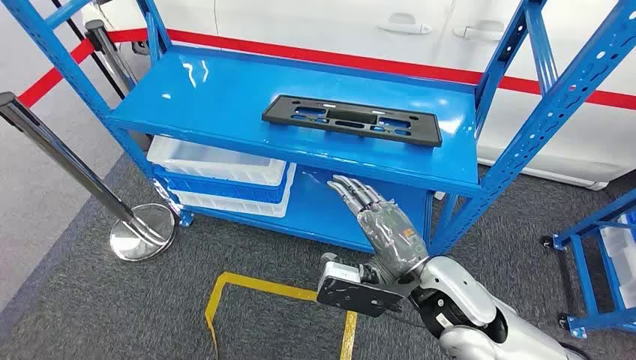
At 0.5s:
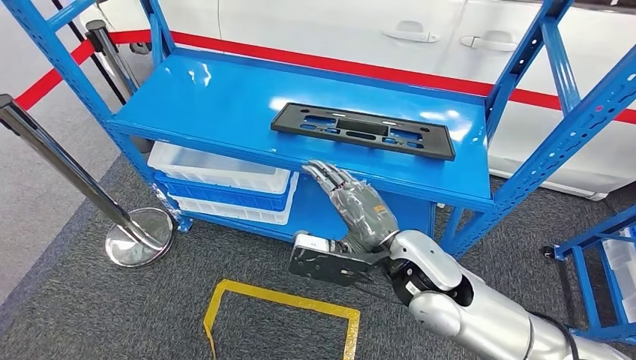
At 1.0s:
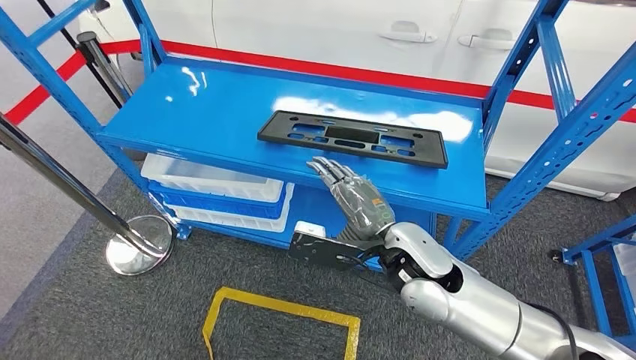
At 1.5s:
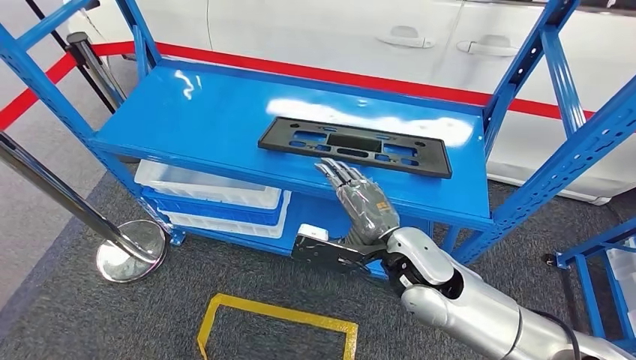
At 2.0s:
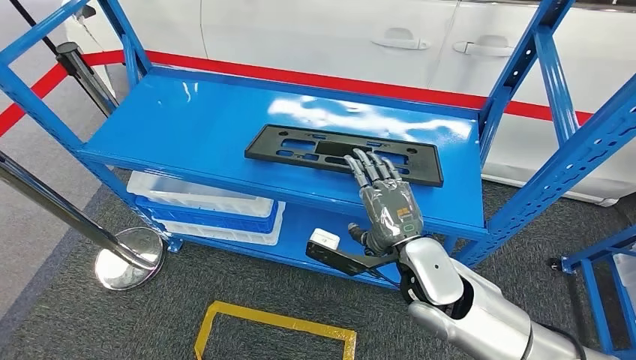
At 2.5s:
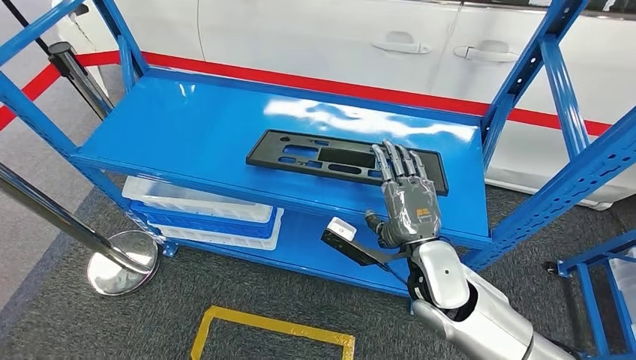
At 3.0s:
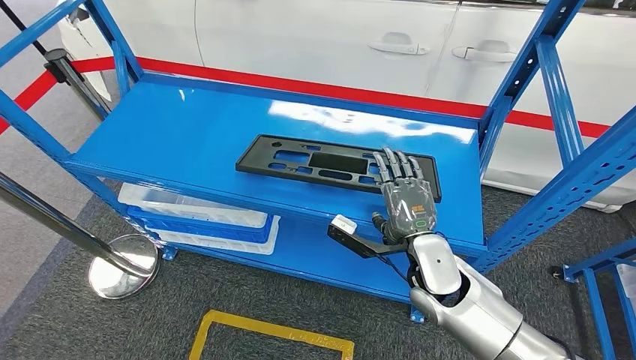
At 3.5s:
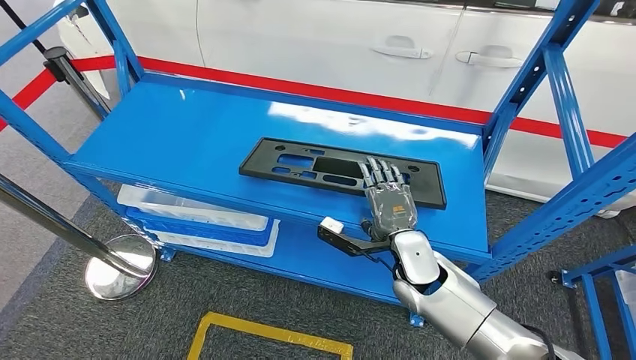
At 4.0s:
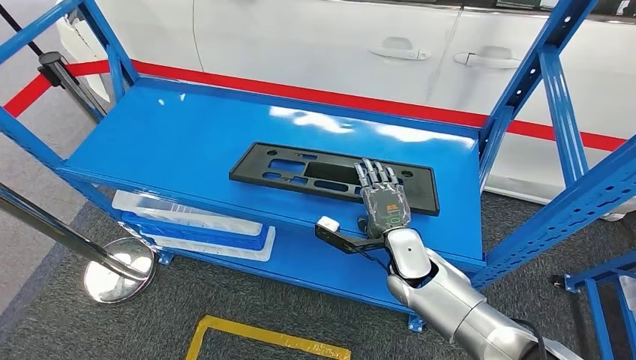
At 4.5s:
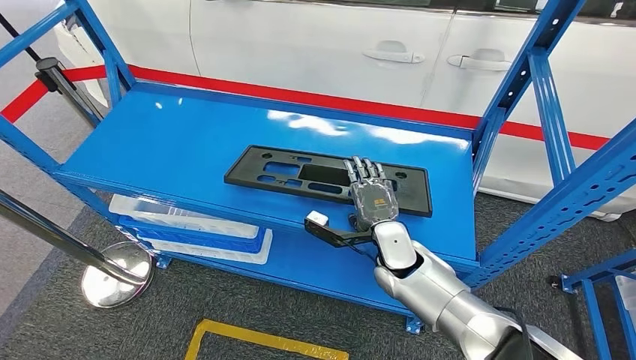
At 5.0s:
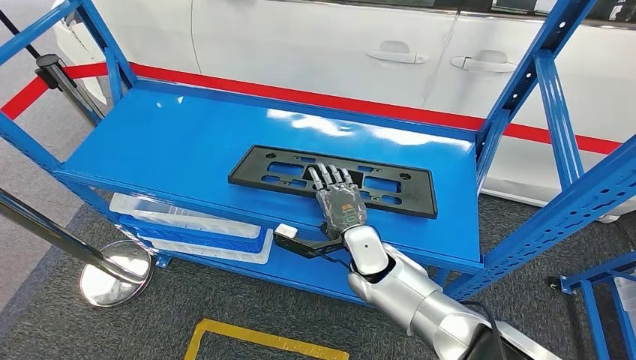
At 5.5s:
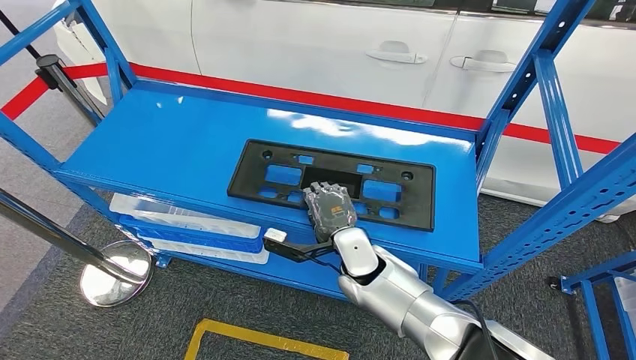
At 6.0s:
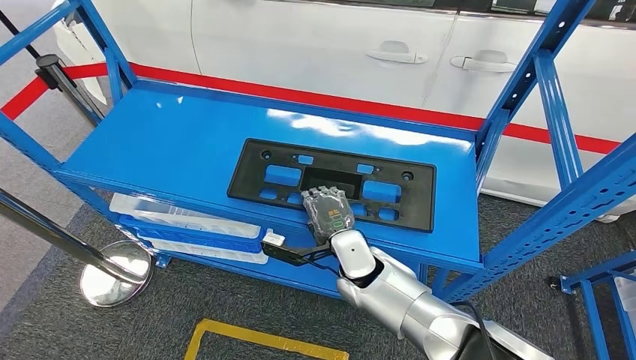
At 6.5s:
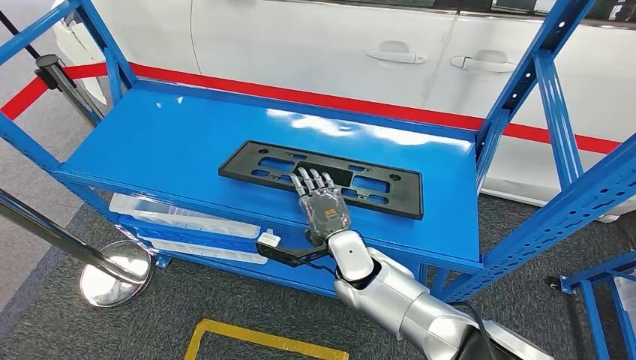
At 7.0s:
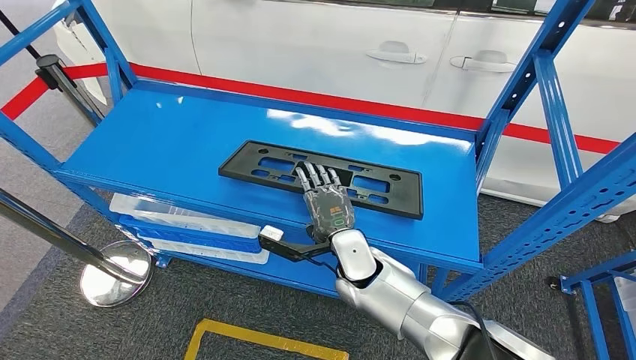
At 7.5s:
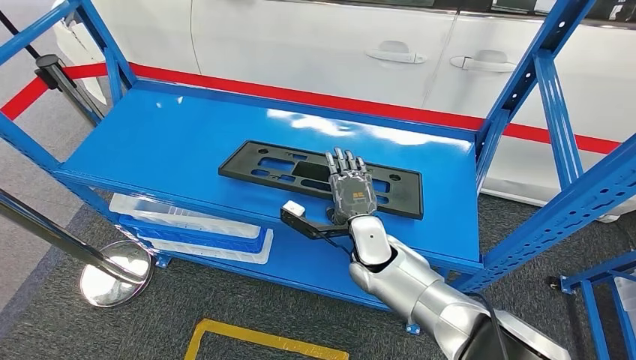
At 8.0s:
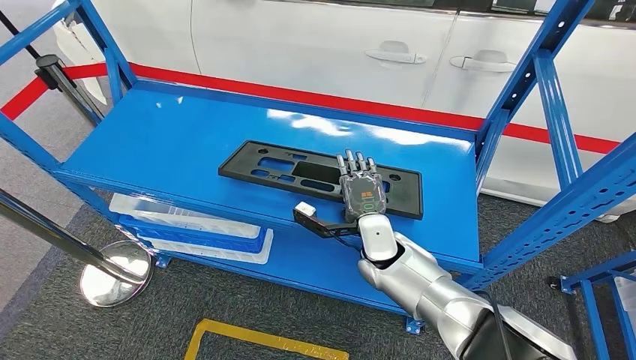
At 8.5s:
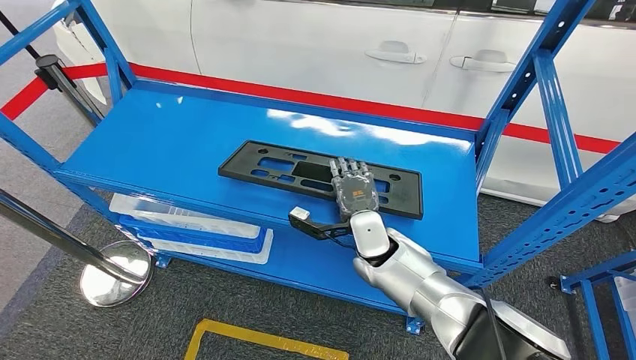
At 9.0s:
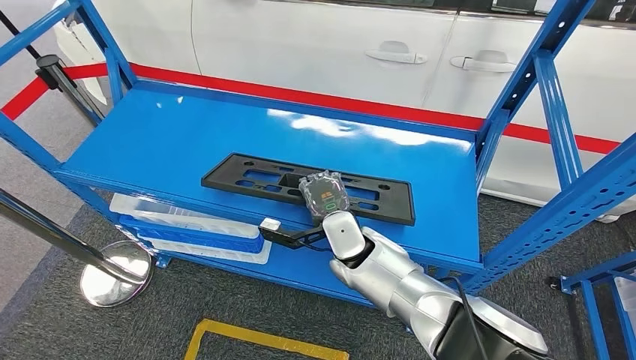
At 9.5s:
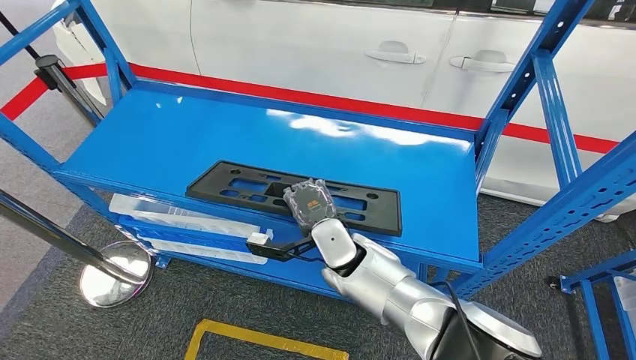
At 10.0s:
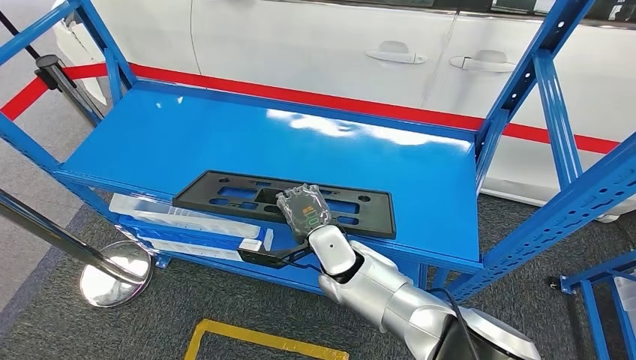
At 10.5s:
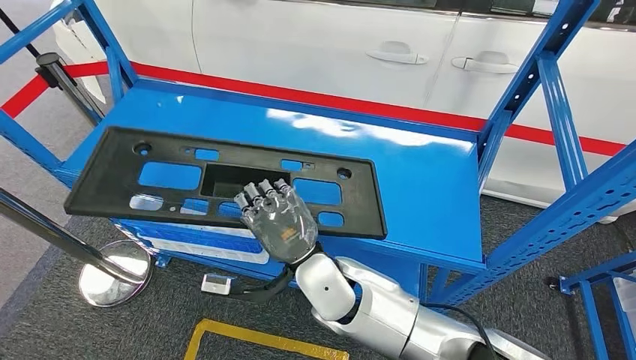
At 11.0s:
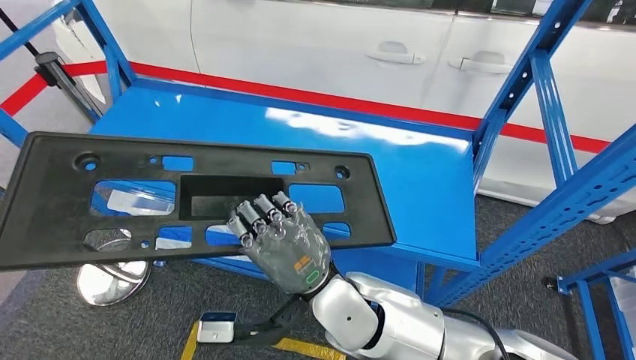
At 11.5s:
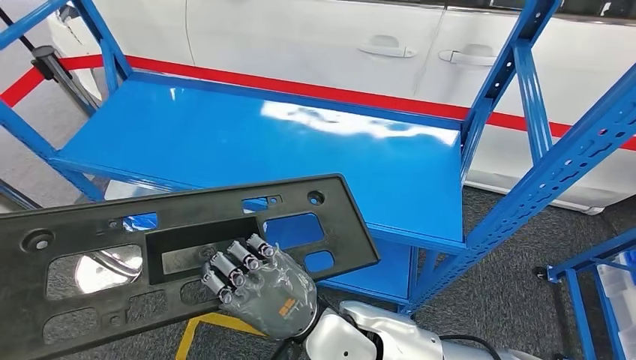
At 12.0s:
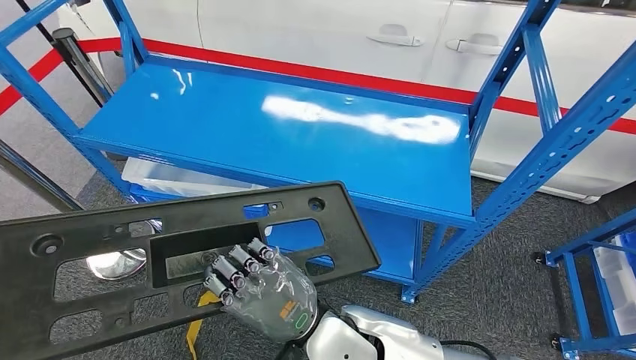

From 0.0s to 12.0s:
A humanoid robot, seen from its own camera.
From 6.0s to 8.0s: The right hand shifts by roughly 5 cm.
From 8.0s to 10.0s: The right hand shifts about 10 cm to the left.

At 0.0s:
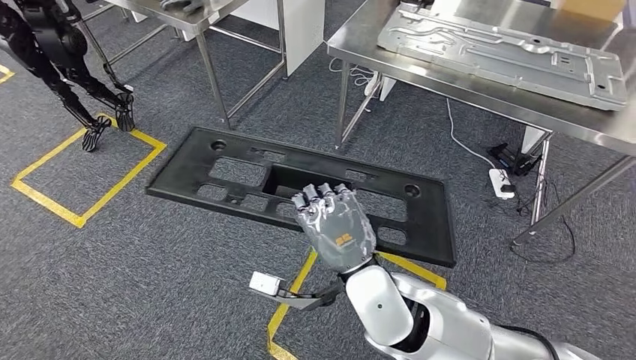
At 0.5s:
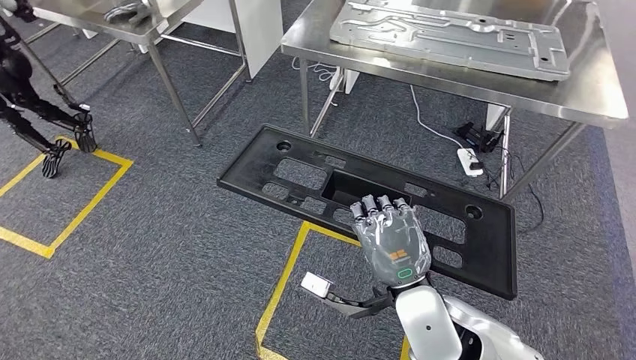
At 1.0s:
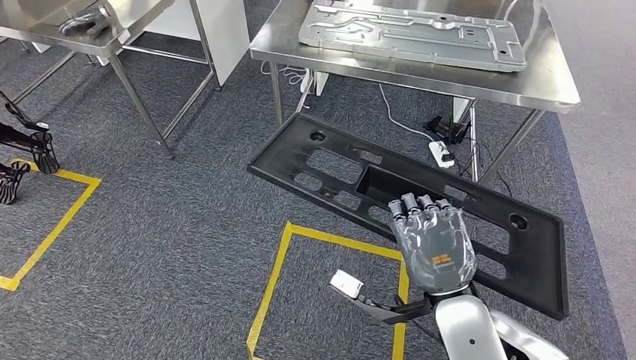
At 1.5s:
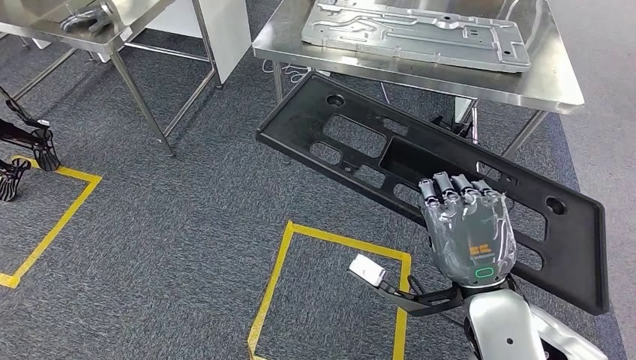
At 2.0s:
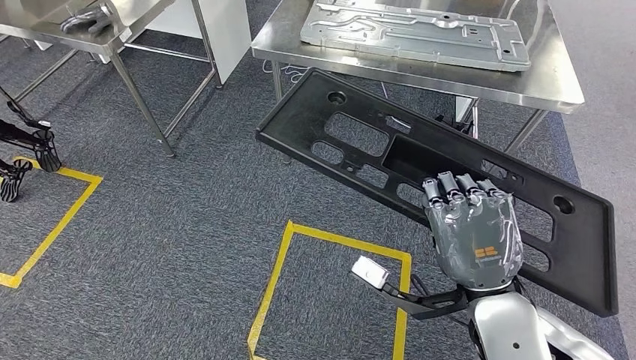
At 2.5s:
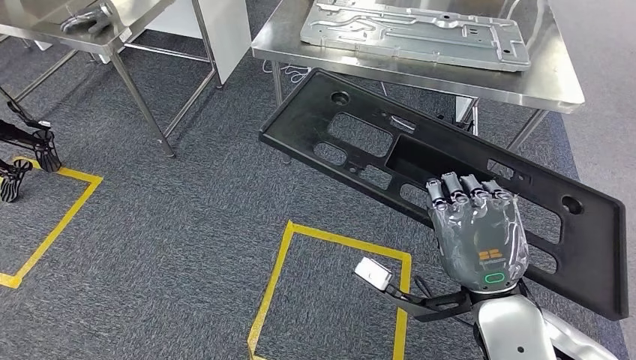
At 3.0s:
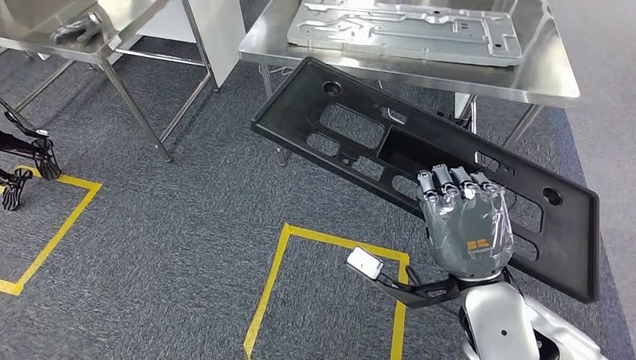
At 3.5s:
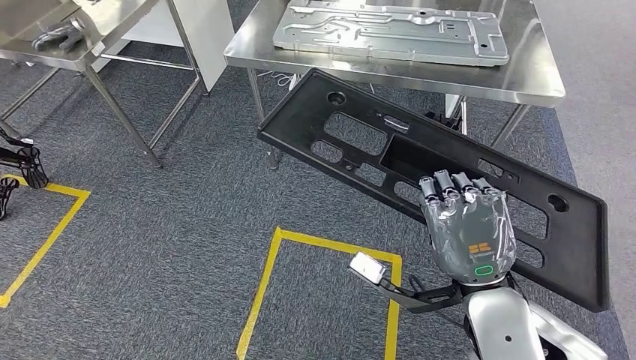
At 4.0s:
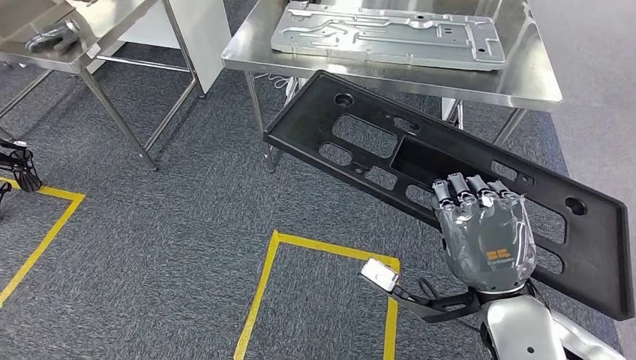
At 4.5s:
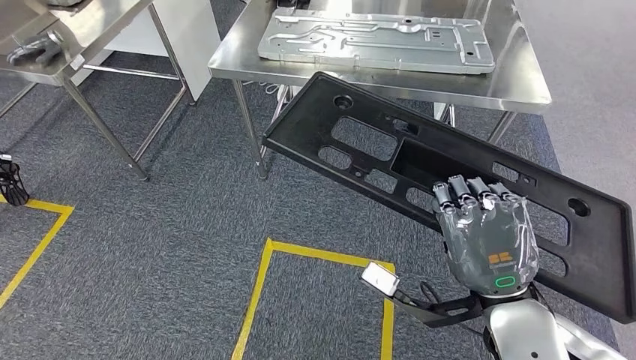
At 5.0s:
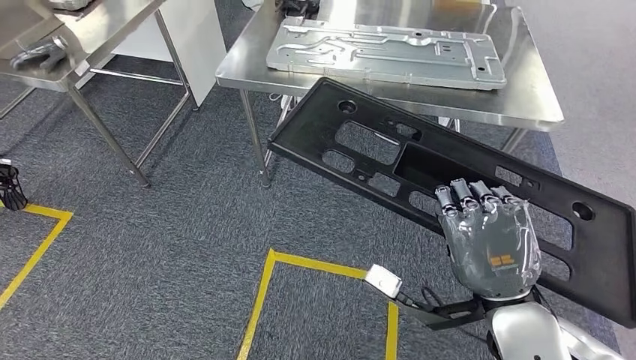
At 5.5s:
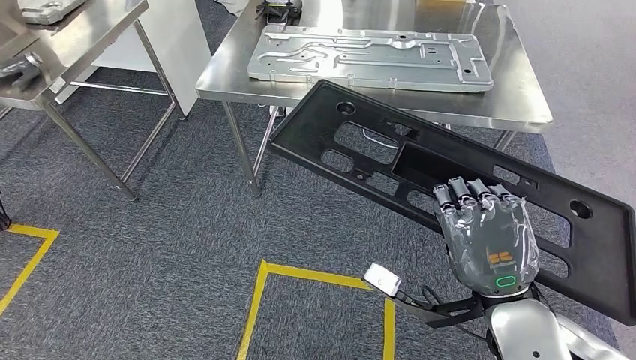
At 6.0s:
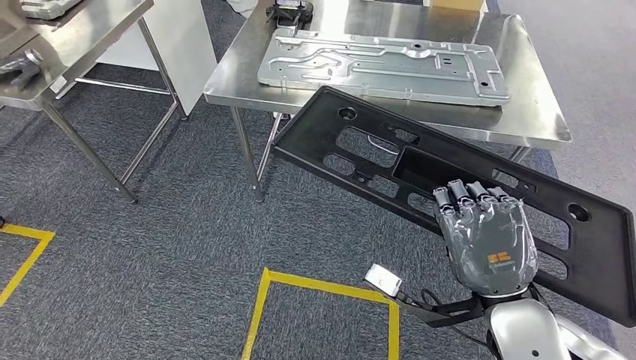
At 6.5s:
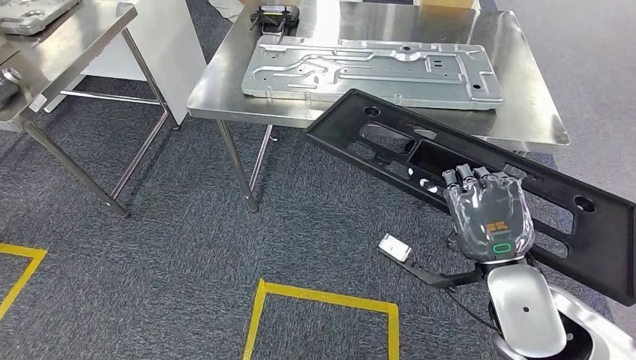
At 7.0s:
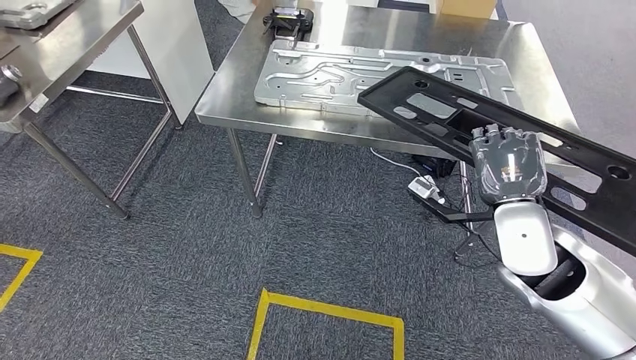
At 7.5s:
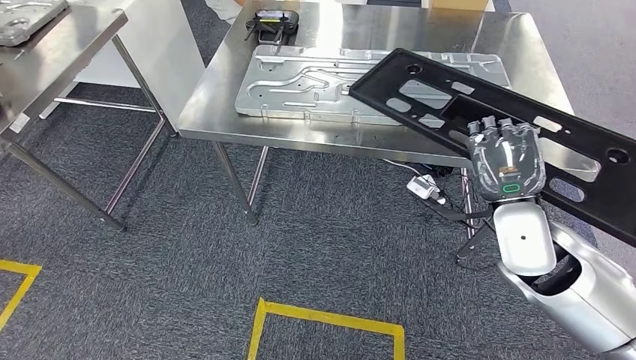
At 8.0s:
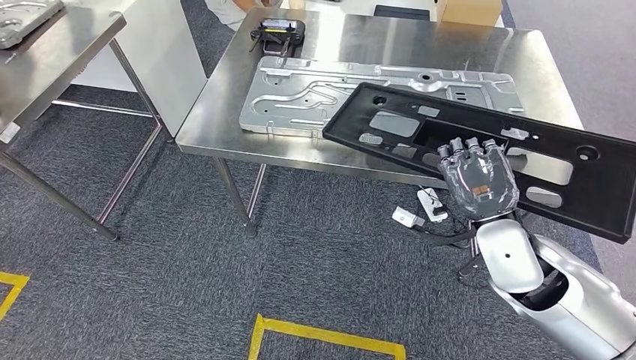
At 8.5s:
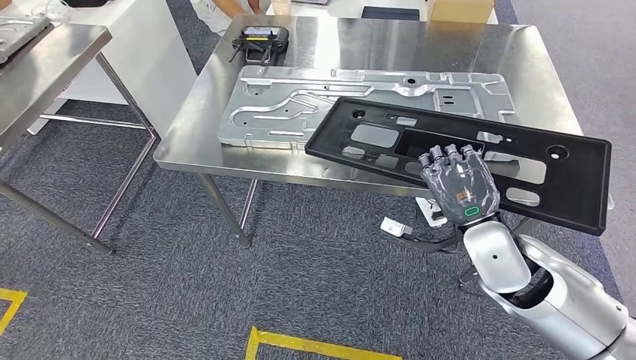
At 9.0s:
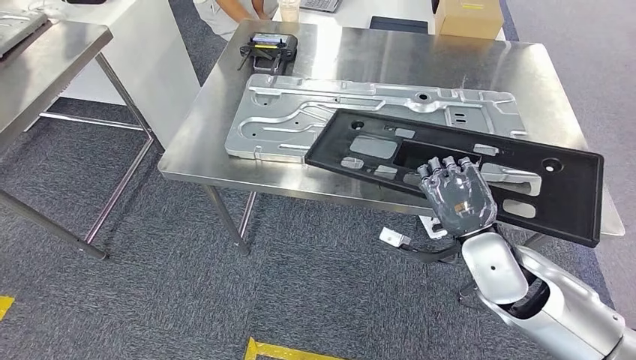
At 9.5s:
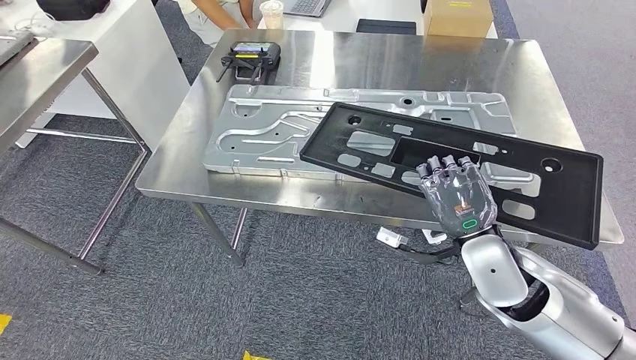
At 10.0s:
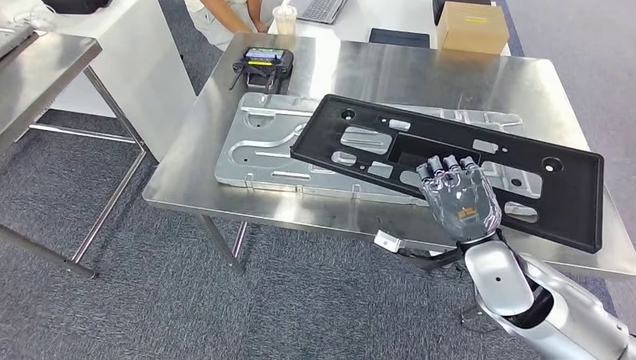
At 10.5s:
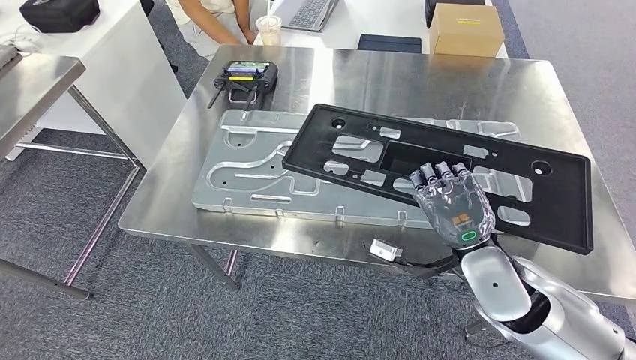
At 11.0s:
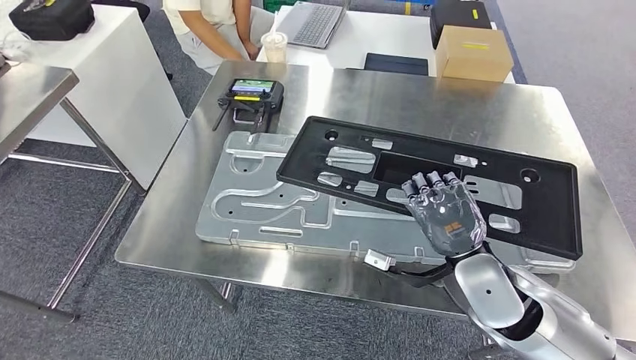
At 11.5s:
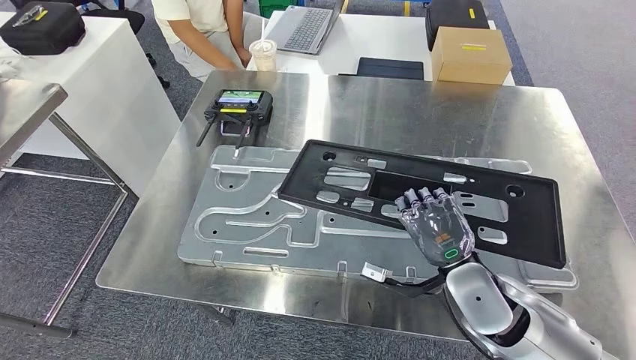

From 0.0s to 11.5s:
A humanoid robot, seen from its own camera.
Step, from 0.0s to 5.5s: Move the large material to the workbench.
